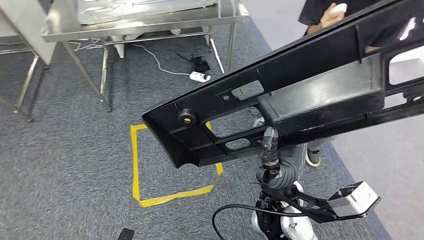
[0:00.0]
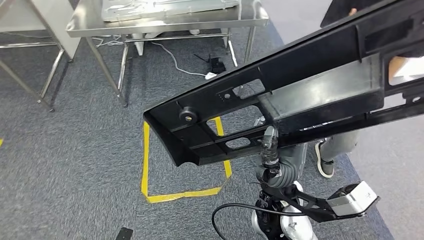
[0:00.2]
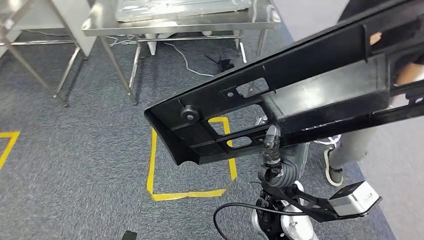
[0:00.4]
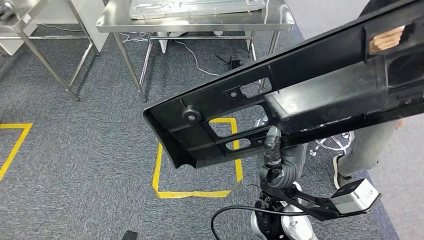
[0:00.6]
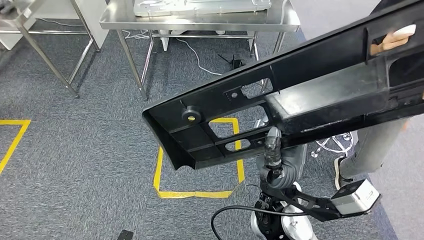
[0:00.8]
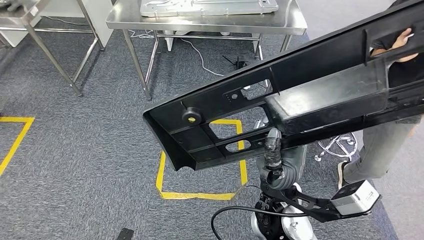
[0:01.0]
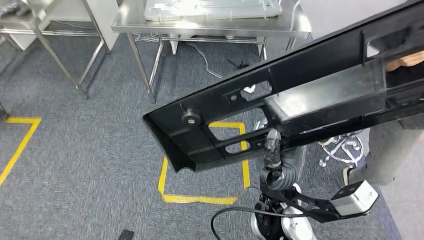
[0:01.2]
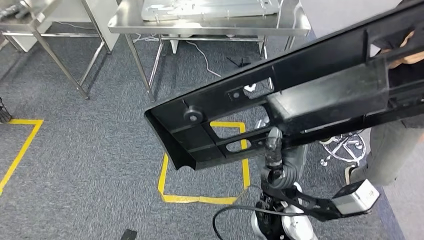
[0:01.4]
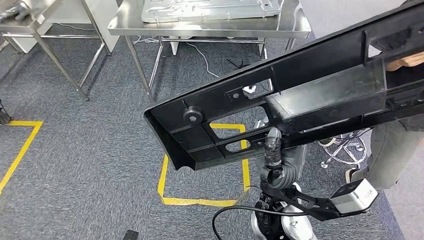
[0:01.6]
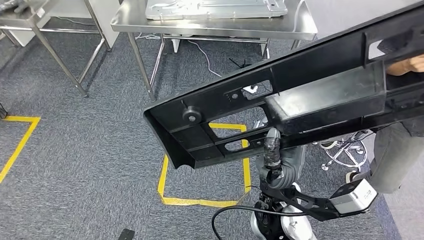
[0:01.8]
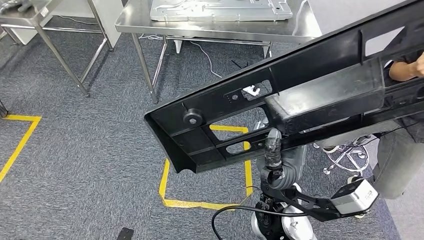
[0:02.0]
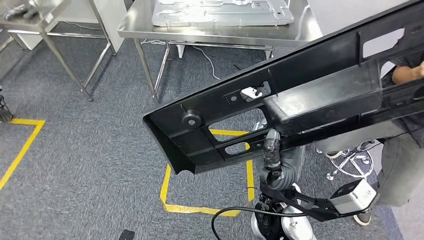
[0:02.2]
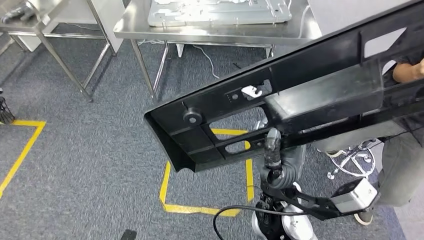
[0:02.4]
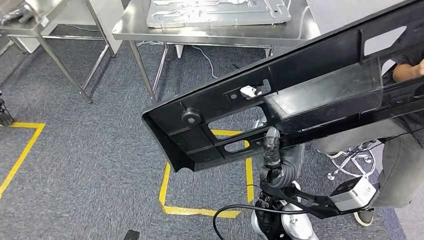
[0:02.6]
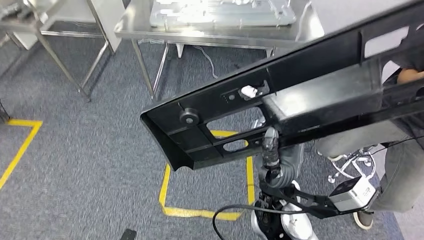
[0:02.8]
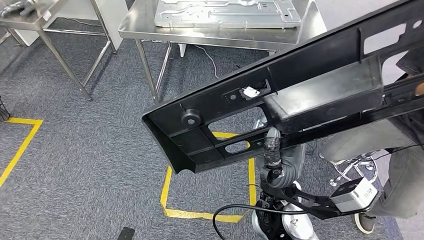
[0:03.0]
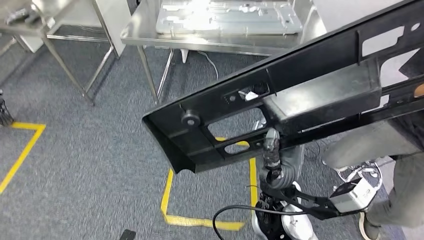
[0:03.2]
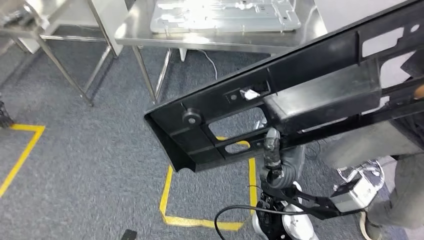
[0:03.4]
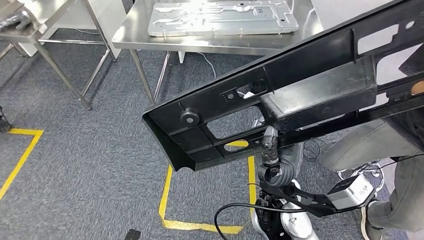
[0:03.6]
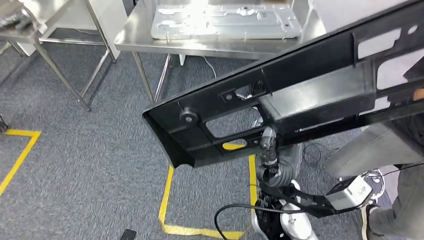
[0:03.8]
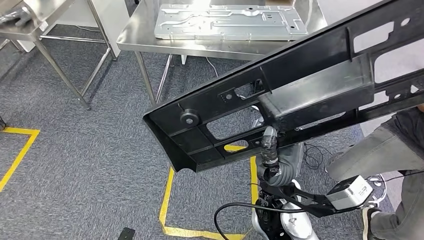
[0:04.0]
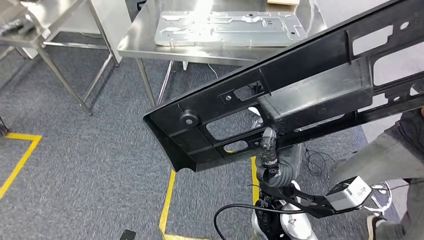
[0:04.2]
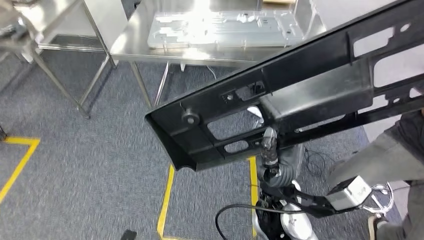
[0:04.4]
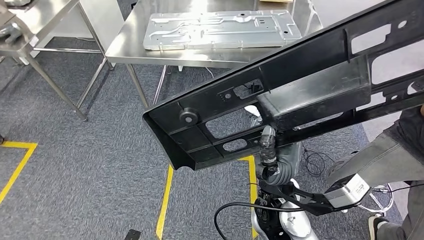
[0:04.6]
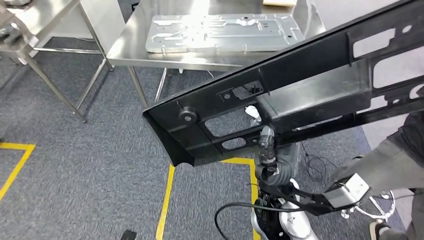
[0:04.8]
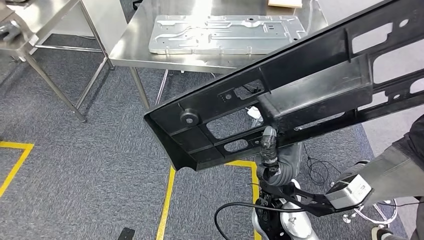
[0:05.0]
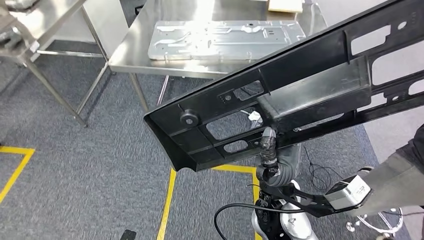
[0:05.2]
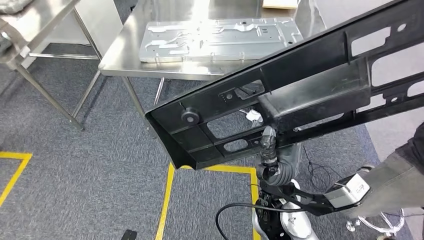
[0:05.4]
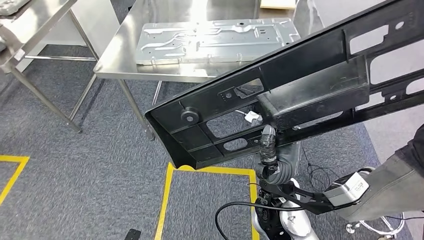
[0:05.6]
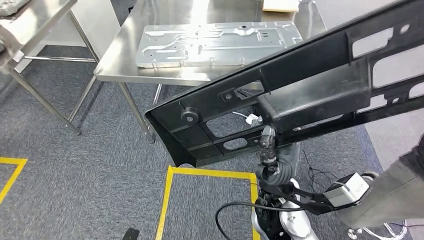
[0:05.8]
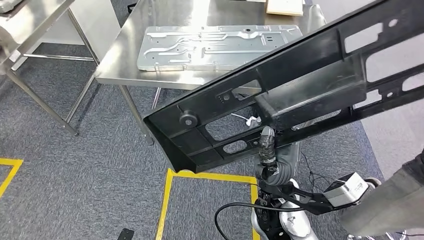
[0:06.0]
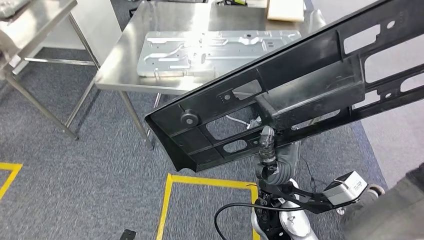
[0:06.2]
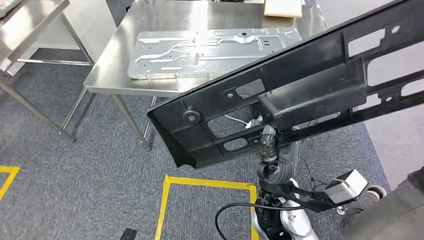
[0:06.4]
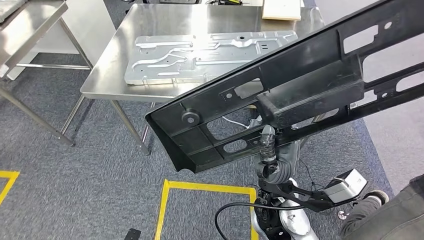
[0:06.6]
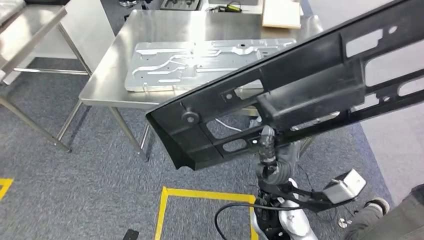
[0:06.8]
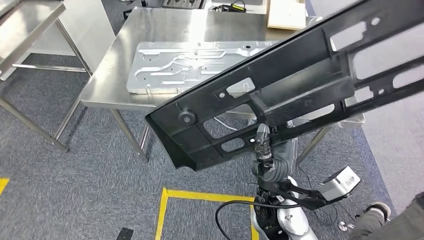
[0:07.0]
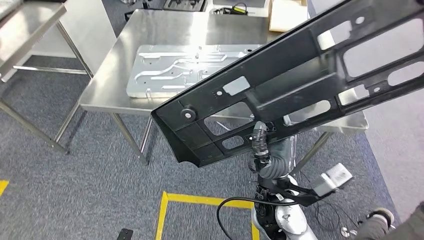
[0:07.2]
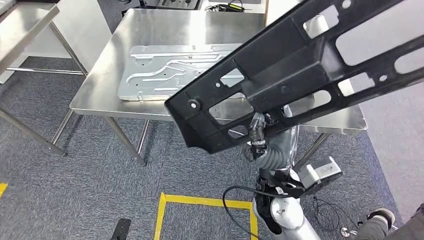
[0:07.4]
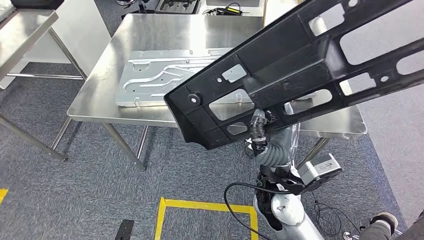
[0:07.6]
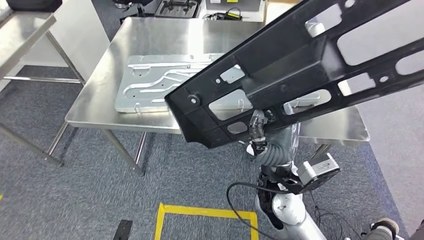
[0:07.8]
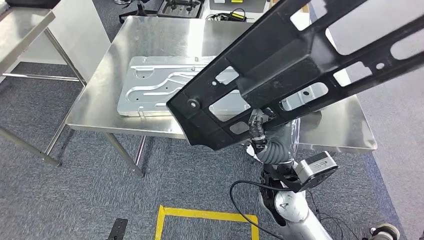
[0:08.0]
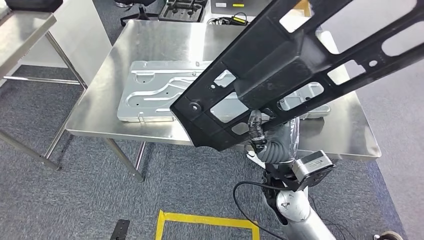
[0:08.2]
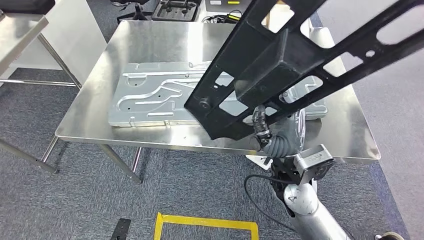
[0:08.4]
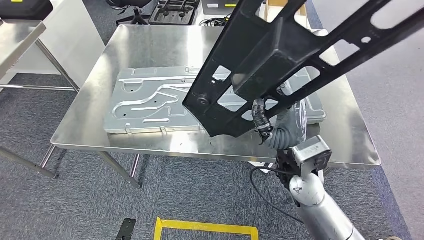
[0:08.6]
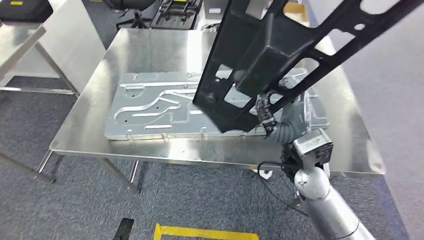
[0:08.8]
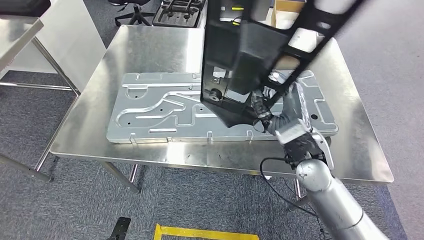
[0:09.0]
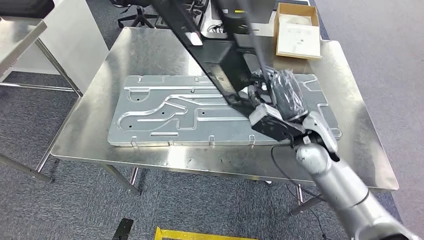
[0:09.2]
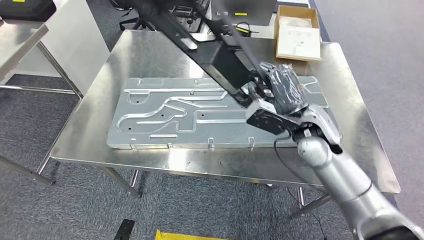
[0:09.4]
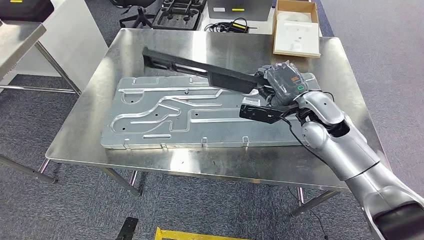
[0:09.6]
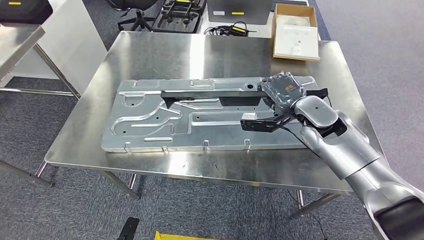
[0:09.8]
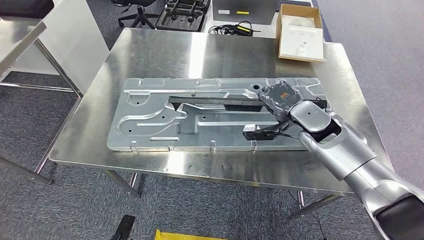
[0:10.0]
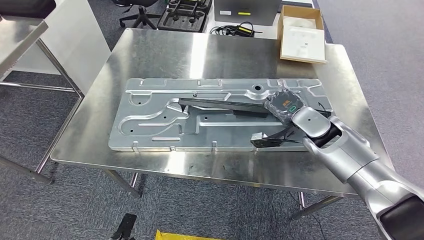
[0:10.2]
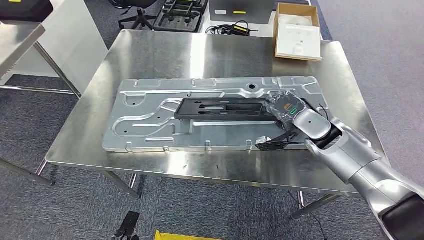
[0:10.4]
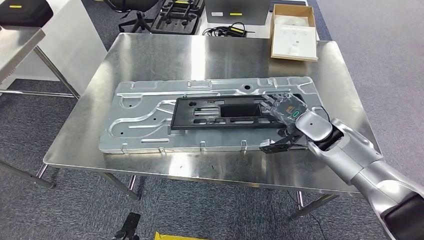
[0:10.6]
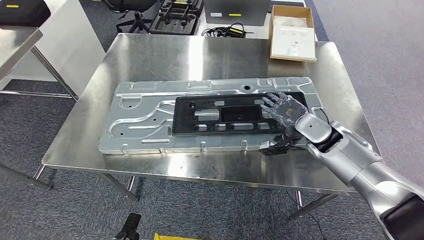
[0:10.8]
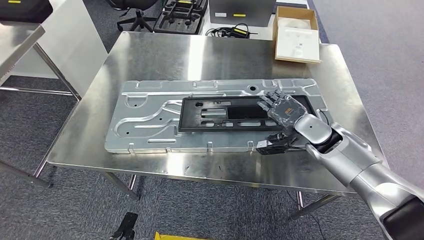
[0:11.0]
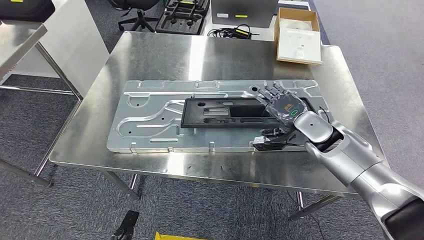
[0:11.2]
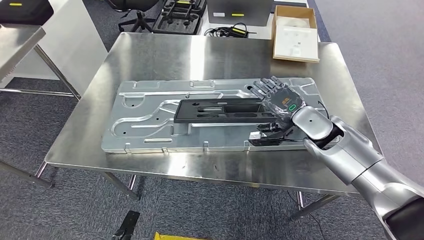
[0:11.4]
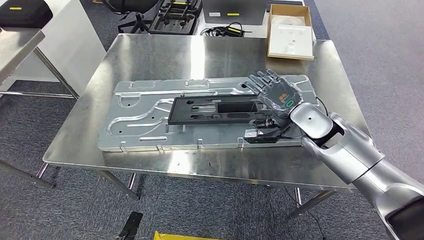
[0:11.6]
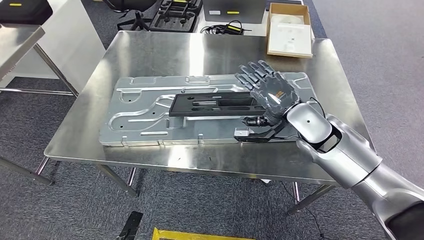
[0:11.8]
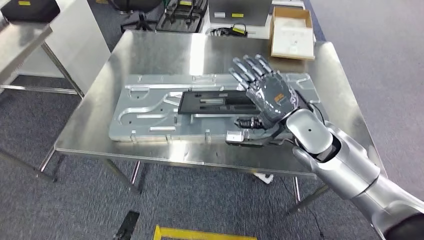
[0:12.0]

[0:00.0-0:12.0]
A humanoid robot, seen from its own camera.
Step, 0:00.0 to 0:07.0: Move the large material to the front of the workbench.

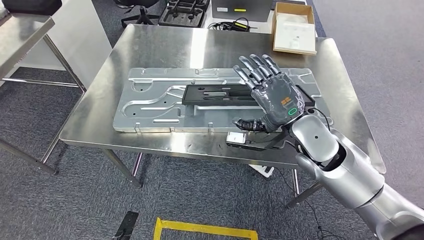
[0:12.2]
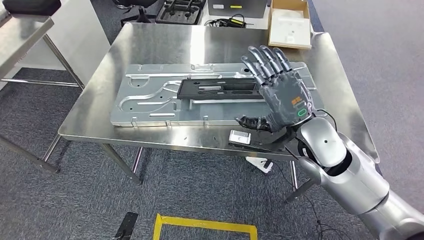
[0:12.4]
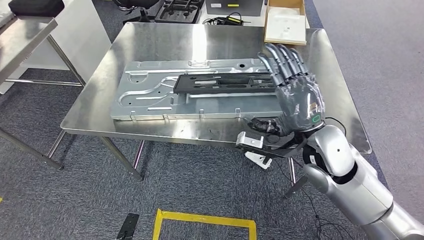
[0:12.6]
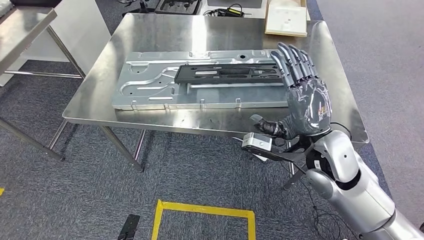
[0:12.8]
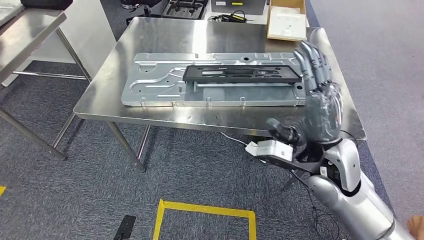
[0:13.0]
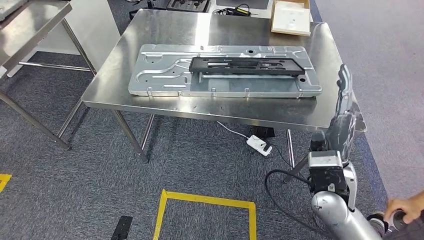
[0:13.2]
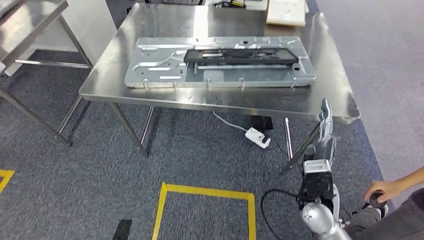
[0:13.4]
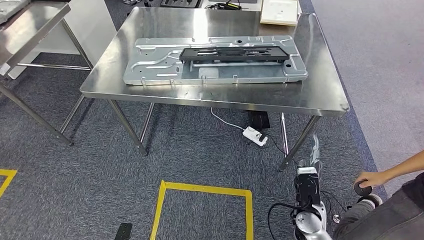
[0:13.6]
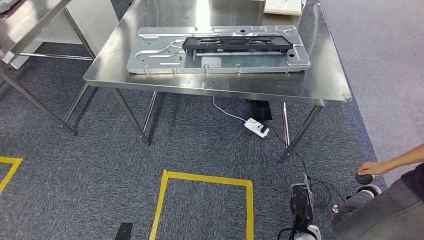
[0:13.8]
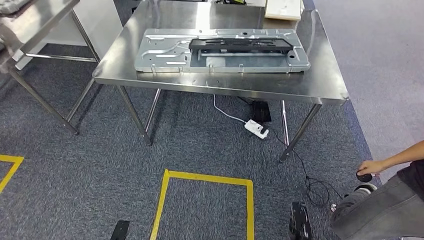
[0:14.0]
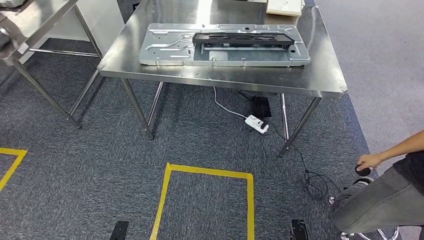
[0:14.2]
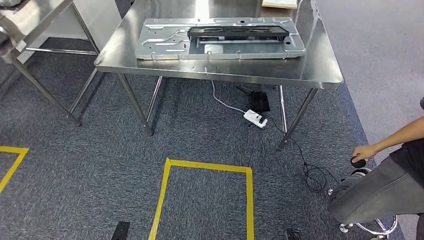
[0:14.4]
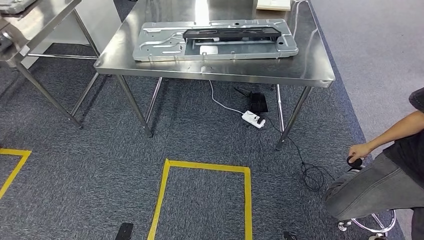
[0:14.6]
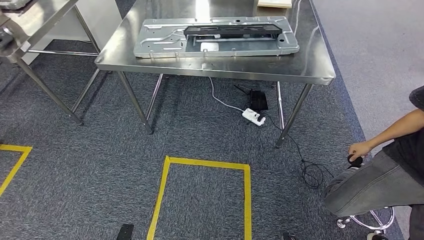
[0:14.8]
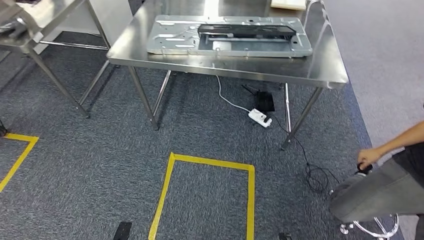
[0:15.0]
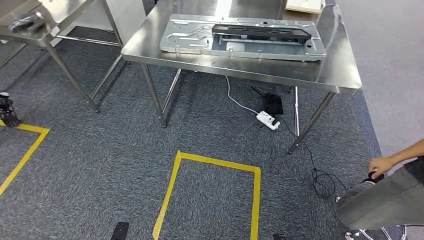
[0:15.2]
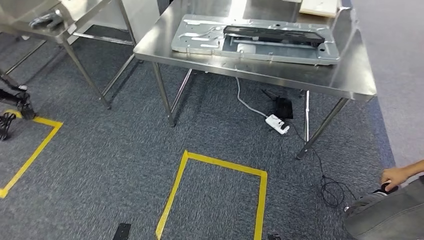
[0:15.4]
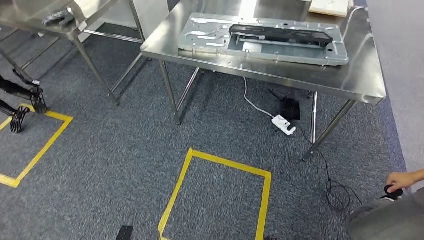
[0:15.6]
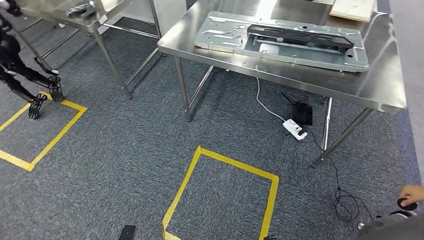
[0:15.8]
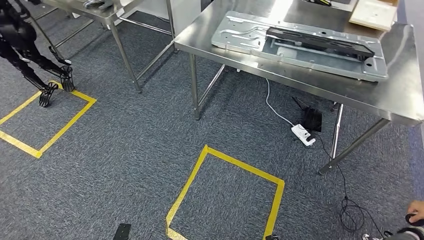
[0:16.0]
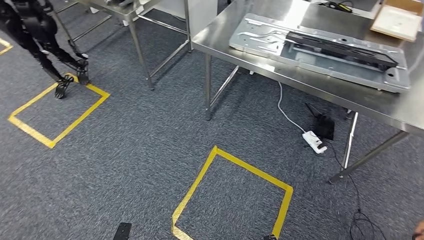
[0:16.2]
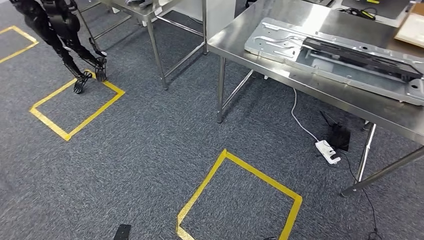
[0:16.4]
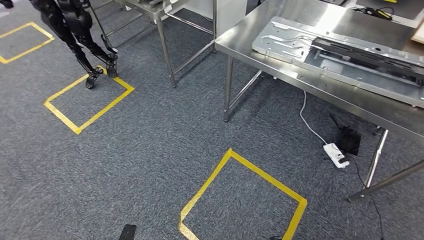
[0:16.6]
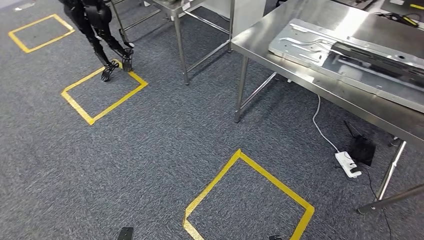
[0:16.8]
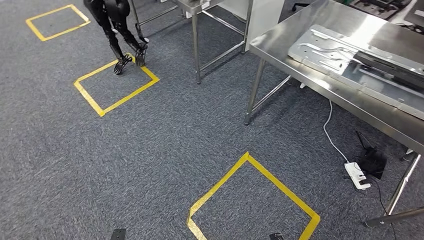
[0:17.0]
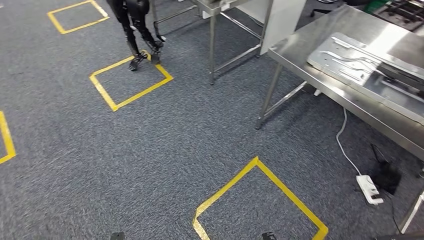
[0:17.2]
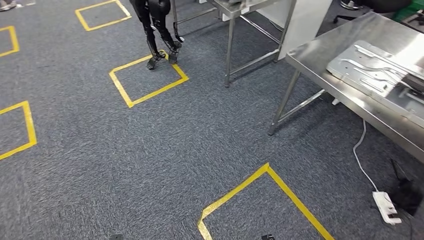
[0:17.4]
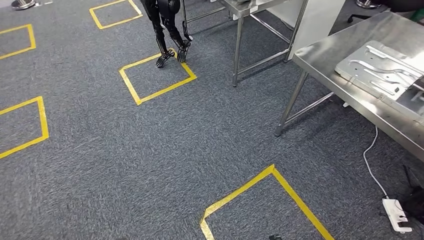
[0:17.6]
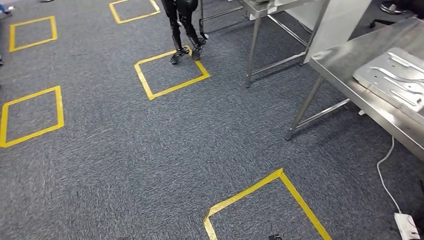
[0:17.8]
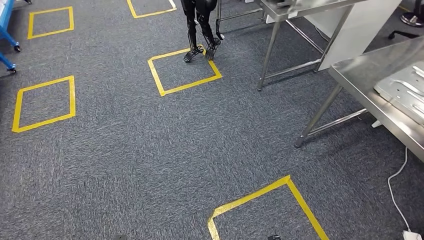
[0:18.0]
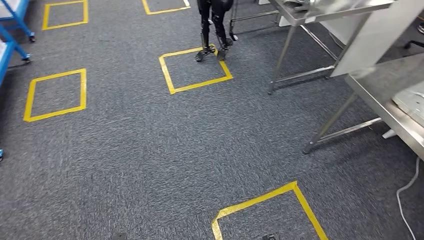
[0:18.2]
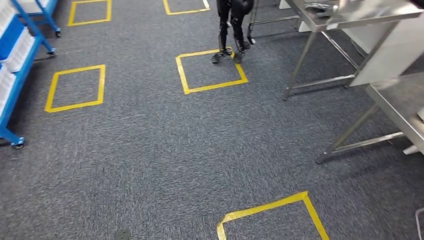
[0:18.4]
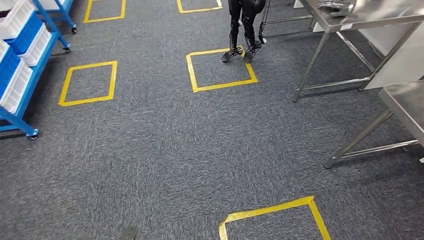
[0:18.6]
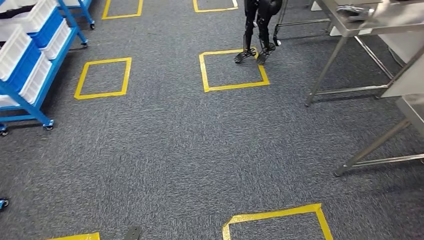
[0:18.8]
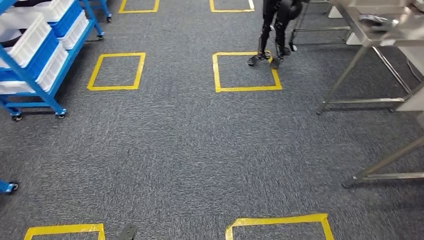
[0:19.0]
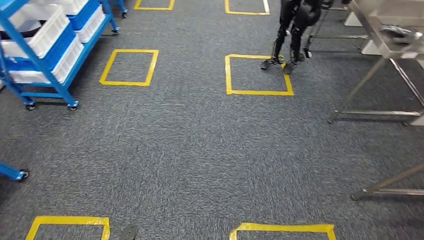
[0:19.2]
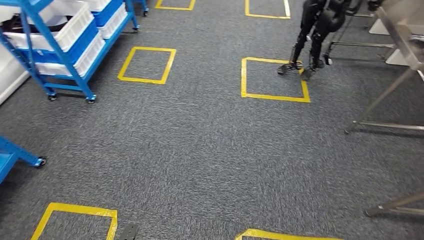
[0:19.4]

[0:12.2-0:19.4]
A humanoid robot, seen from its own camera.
Step, 0:12.2 to 0:17.0: Insert the large material into the corresponding hole on the workbench.
